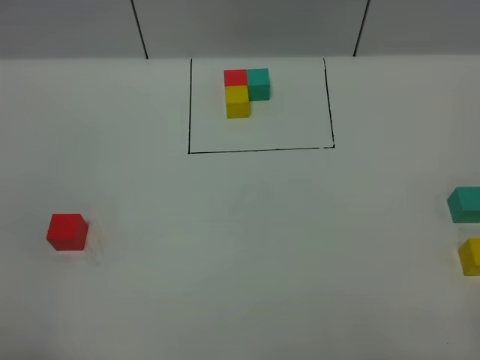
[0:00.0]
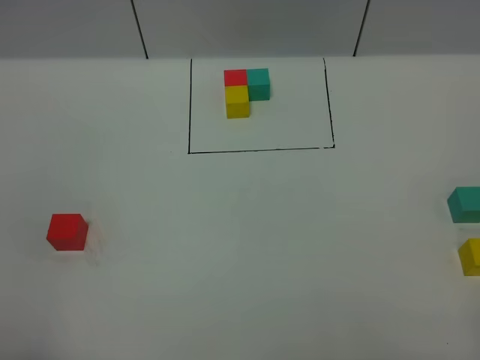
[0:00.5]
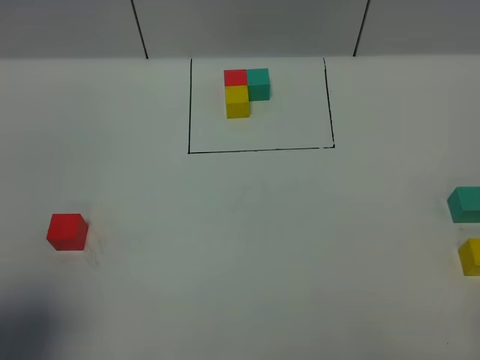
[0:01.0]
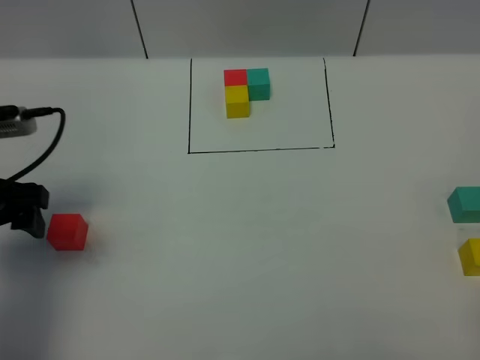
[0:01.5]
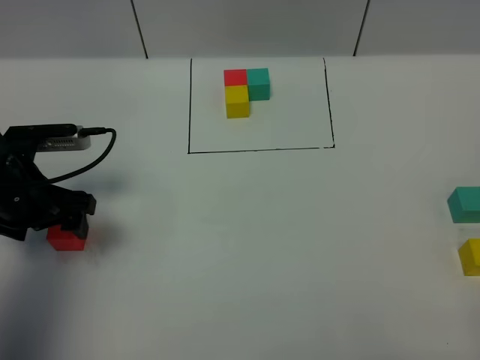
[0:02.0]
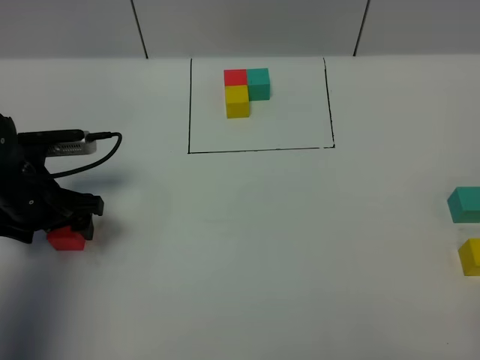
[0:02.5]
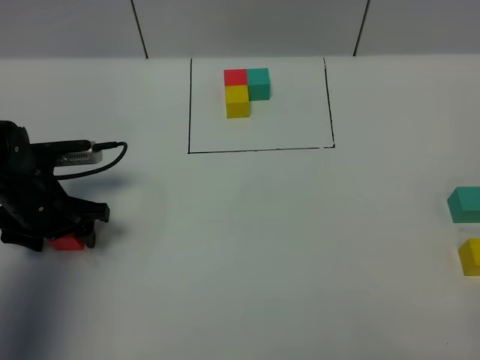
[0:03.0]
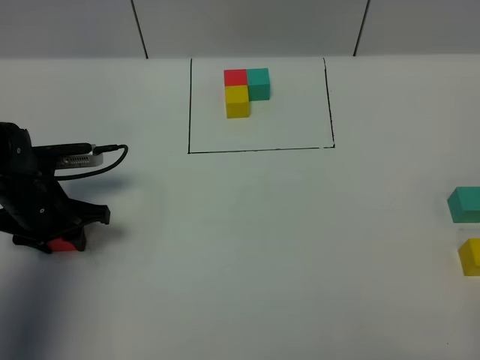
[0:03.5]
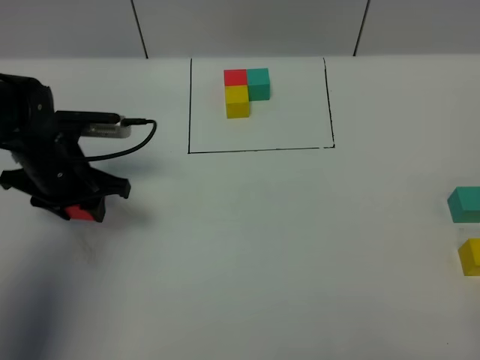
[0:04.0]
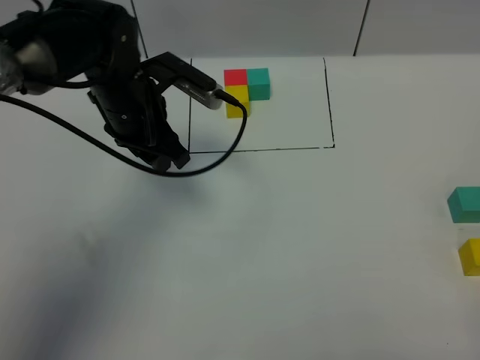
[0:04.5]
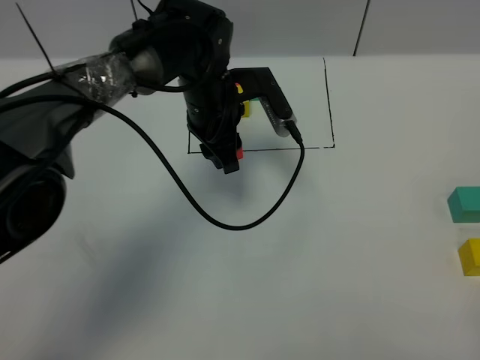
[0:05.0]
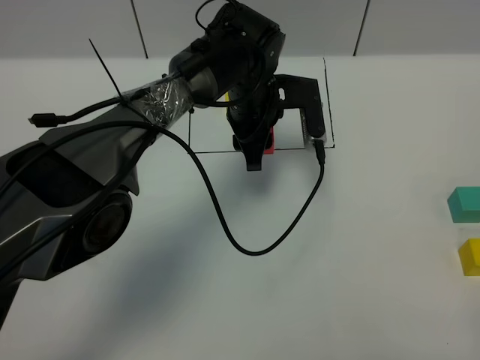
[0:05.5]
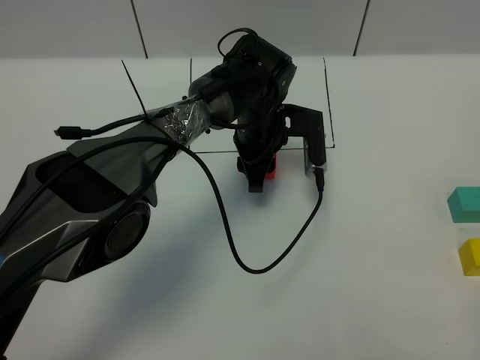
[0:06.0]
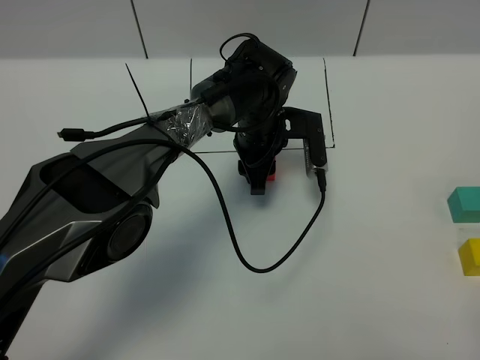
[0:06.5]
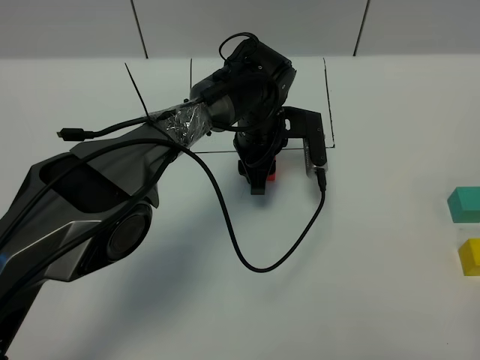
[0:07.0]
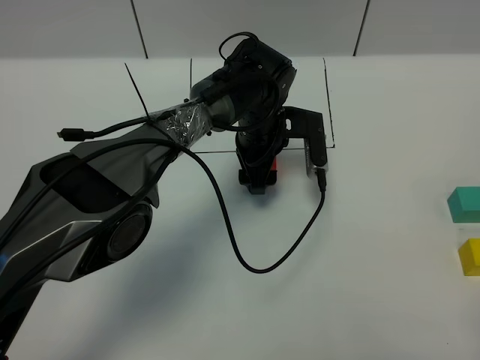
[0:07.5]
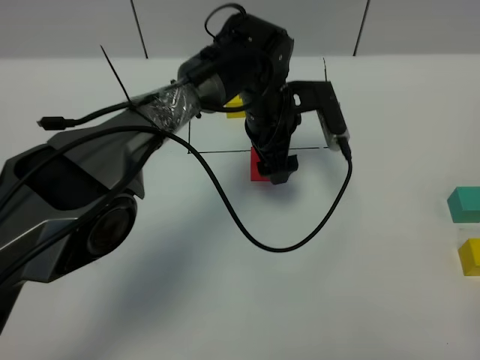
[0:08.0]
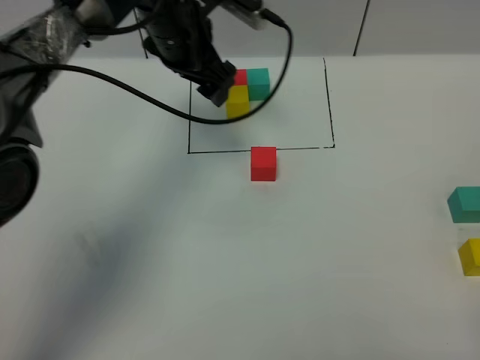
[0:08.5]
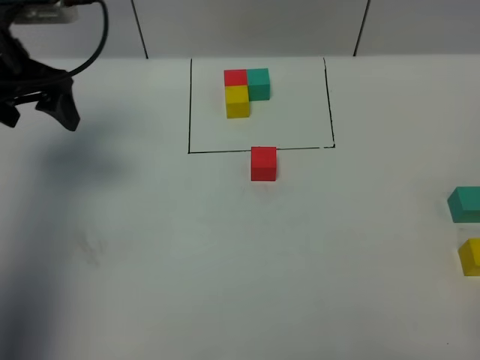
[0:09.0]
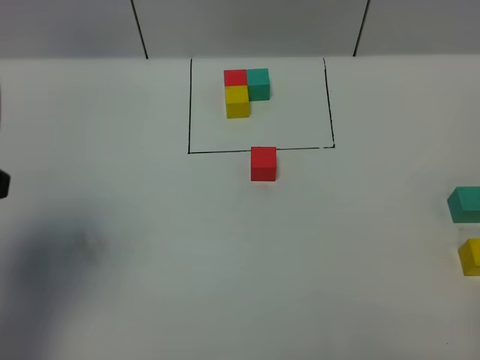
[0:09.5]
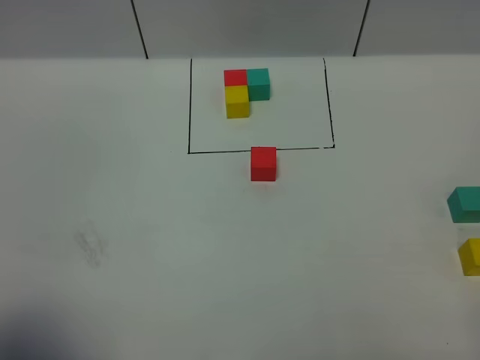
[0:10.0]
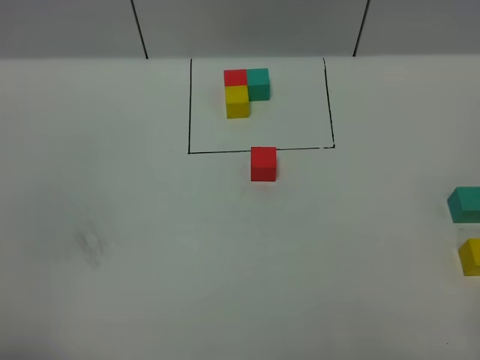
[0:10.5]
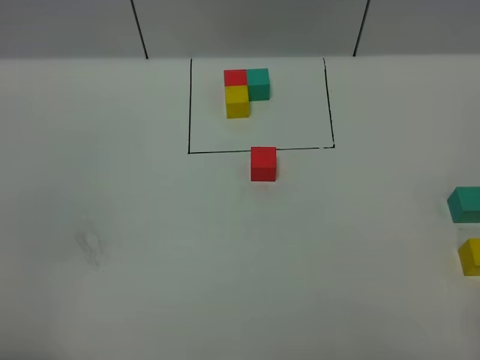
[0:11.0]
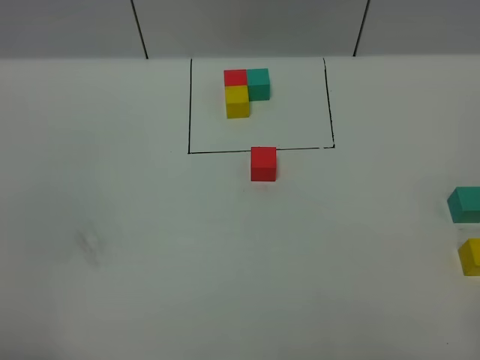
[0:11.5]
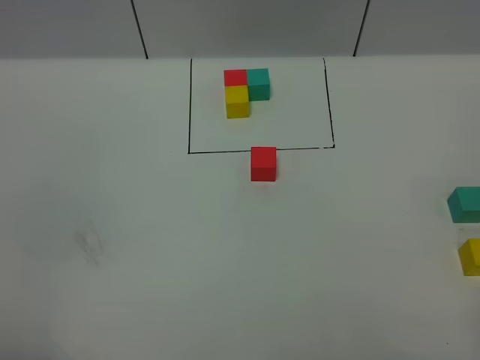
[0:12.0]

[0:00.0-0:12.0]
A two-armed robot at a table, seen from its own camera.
Task of the whole recording: According to the building block template in front, assemble the scattered blocks together.
Step, 0:00.0 to 0:07.0: Put the red build block in the center of the table.
0:00.0 to 0:02.0: The left gripper travels forward by roughly 30 cm.
0:02.0 to 0:04.0: The left gripper ends up roughly 5 cm from where it was, and closes its fingers.
0:04.0 to 0:06.0: The left gripper is displaced to the right by roughly 25 cm.
0:06.0 to 0:08.0: The left gripper opens up.
0:08.0 to 0:10.0: The left gripper goes some 50 cm backward, to the left and upward.
0:10.0 to 0:12.0: The left gripper travels downward and backward by about 10 cm.

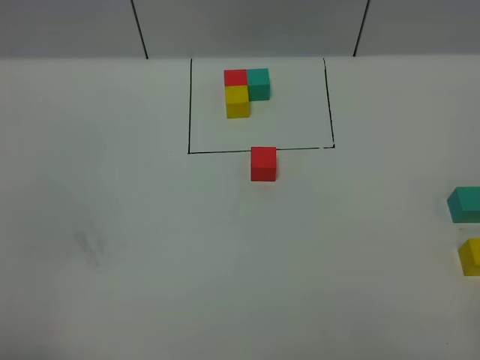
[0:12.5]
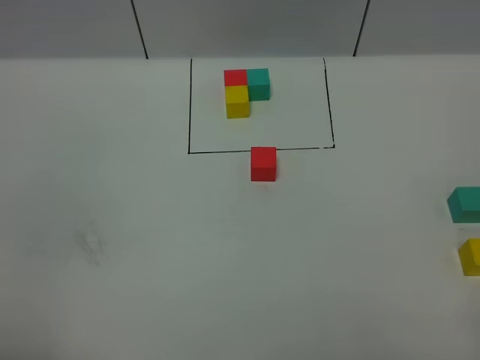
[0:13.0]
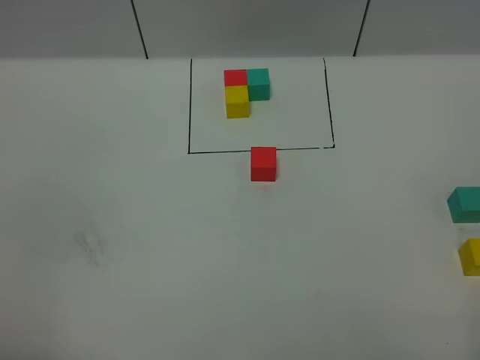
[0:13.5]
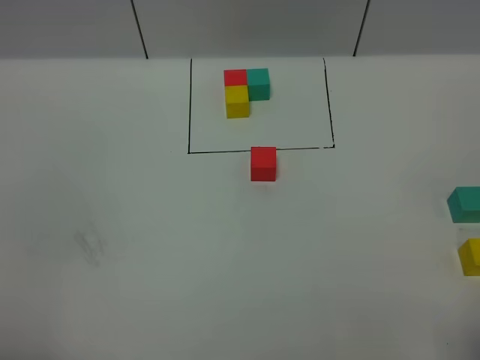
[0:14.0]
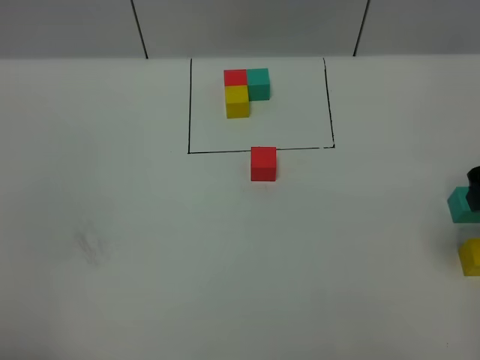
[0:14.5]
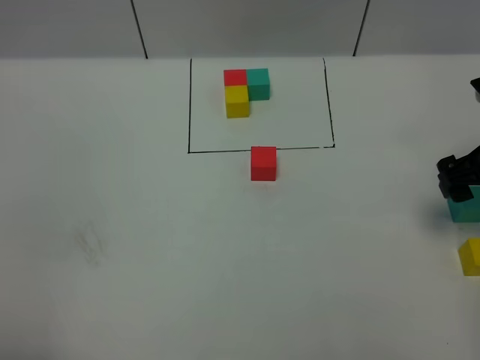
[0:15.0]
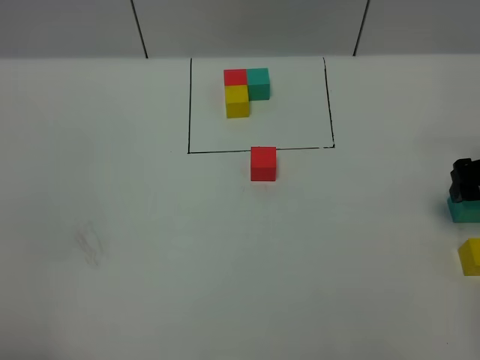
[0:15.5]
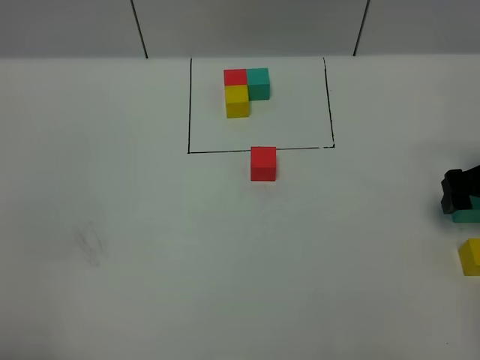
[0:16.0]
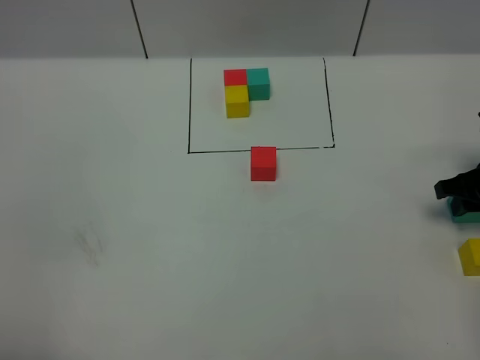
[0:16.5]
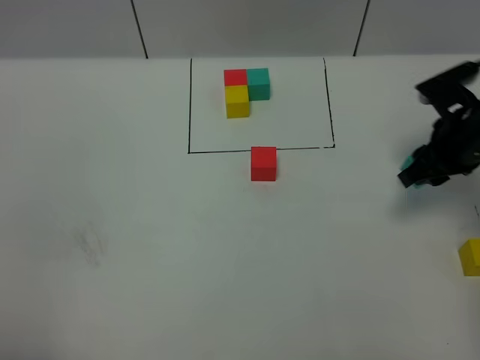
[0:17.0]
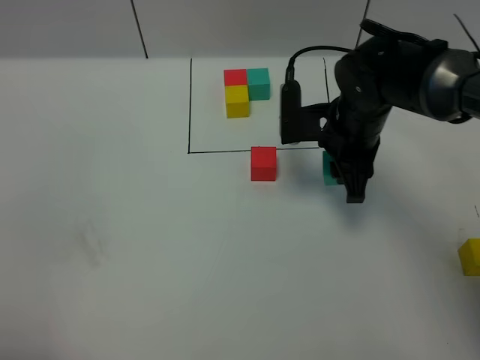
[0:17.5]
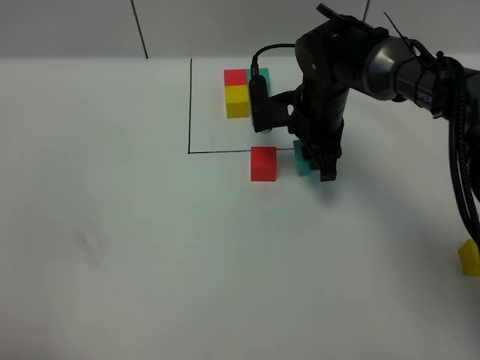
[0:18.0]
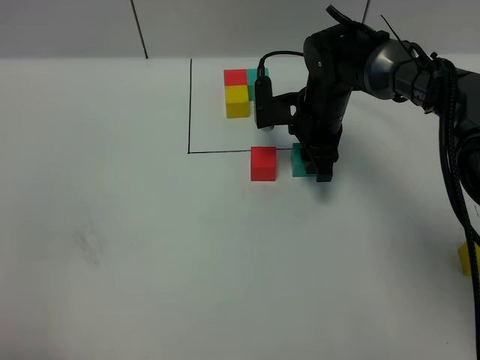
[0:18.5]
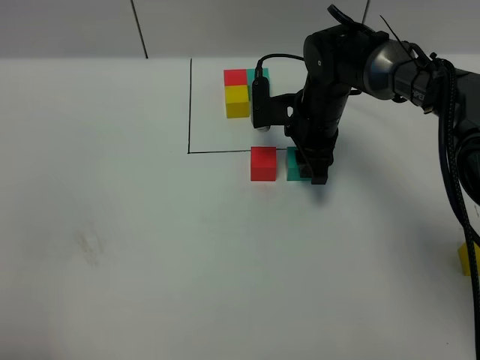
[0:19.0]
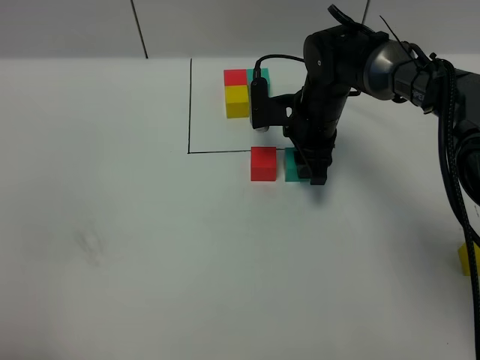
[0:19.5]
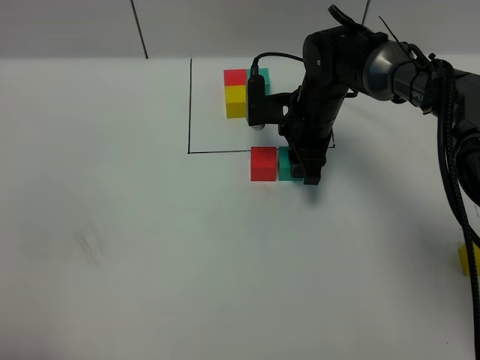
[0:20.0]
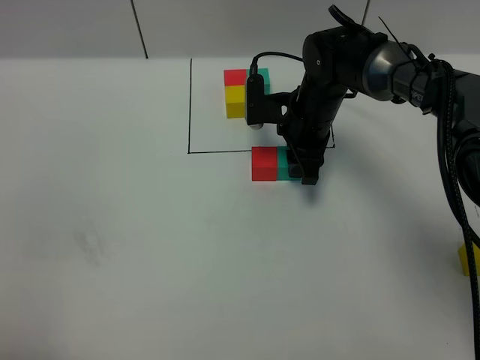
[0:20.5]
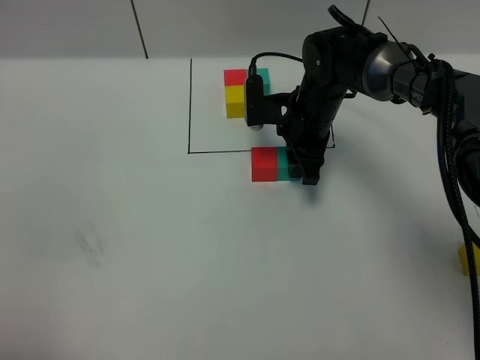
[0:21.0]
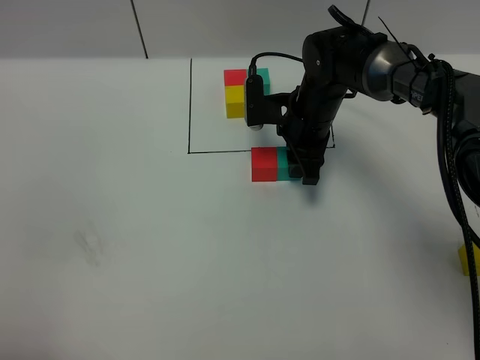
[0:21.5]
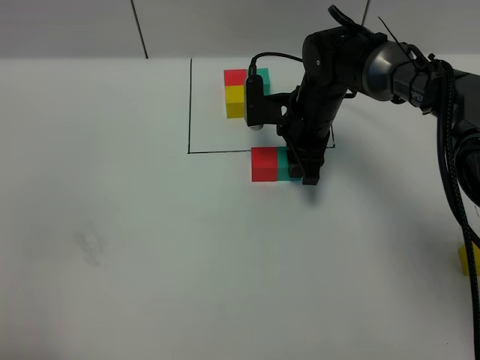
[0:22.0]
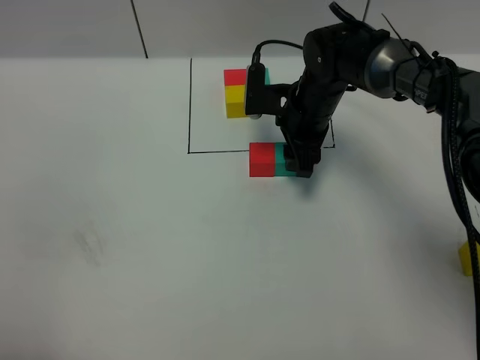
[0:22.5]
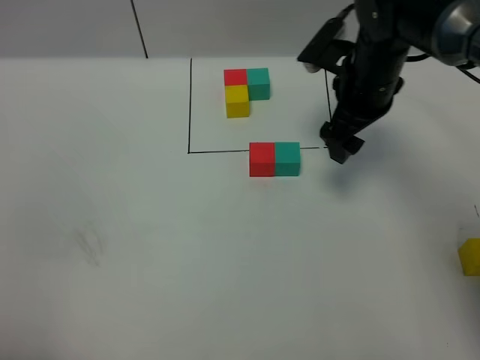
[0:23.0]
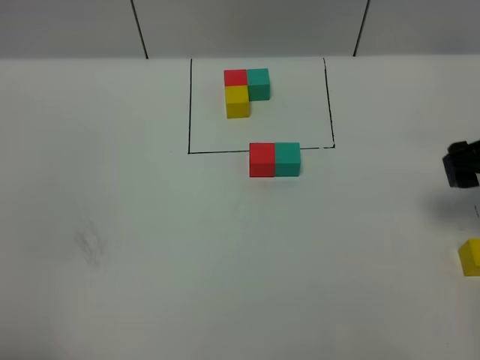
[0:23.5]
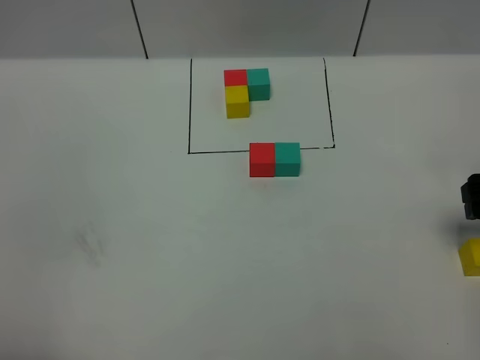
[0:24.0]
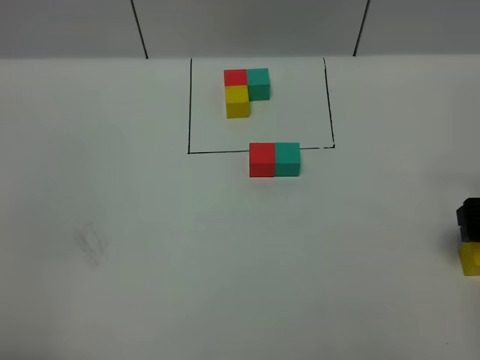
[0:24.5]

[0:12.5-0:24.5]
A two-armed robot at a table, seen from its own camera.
Task of the whole recording: According to the building block template in front, assemble the scattered blocks together.
Step, 0:12.5 to 0:22.5: Put the green build block on the right of the red build block.
0:12.5 to 0:14.5: The right gripper goes some 25 cm forward, and opens up.
0:14.5 to 0:16.5: The right gripper moves downward and forward, some 15 cm, and closes up.
0:16.5 to 0:18.5: The right gripper travels to the left and forward by about 25 cm.
0:18.5 to 0:22.5: The grippers stay close to where they were, moving slightly.
0:22.5 to 0:24.5: The right gripper goes about 30 cm to the right and backward, and opens.

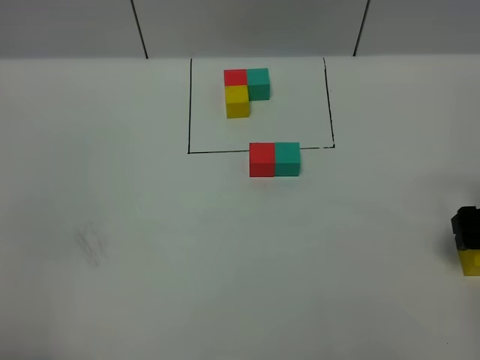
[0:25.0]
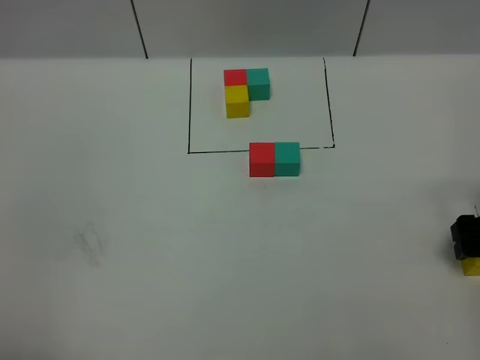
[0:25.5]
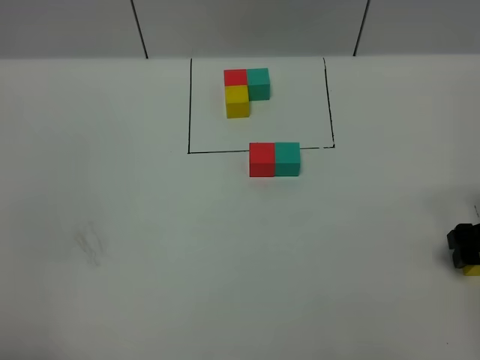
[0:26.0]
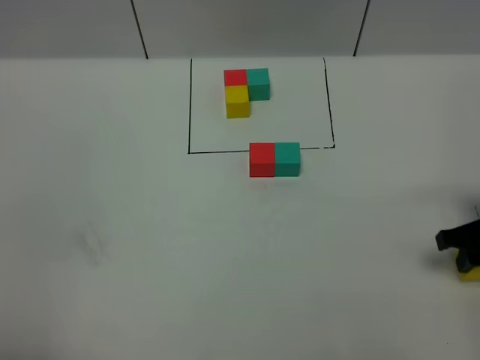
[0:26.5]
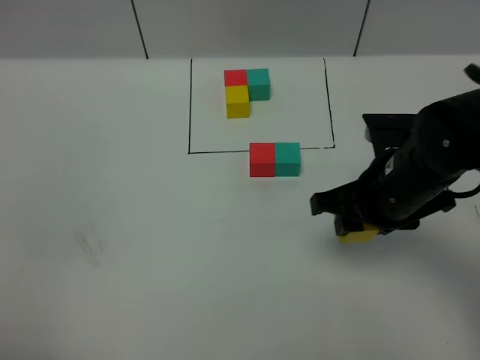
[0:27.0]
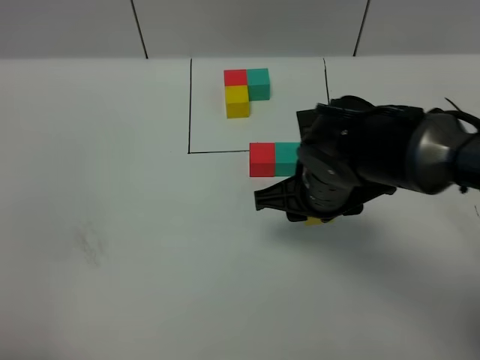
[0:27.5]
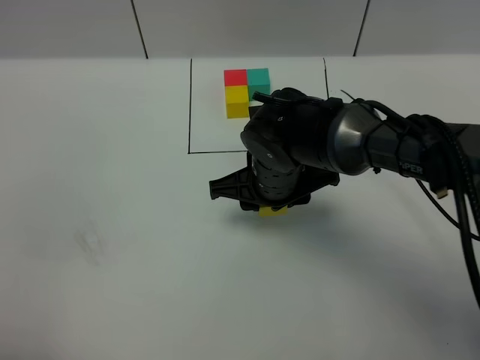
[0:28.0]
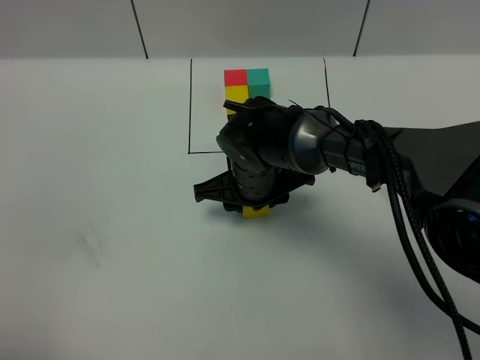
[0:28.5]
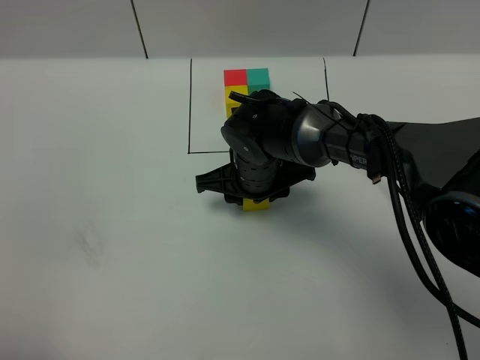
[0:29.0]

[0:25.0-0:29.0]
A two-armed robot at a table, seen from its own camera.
Task of the whole recording: According to the building block template in front, assemble the scattered blocks together.
0:25.0 to 0:27.0: The right gripper travels to the left by roughly 20 cm, and closes.
0:27.0 to 0:29.0: The right gripper moves to the left, forward and downward, approximately 20 cm.
